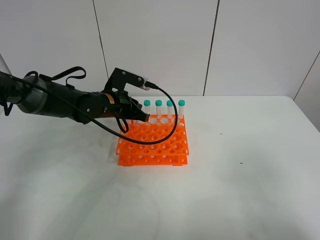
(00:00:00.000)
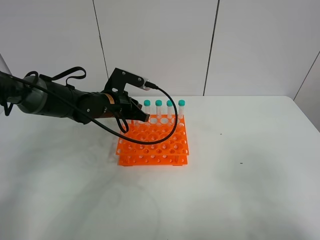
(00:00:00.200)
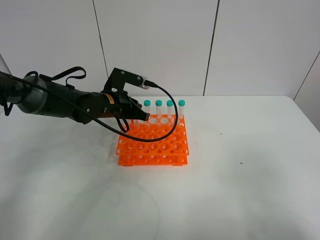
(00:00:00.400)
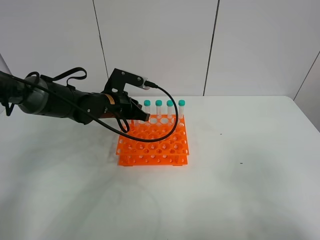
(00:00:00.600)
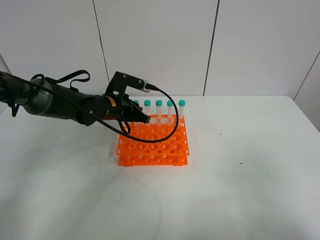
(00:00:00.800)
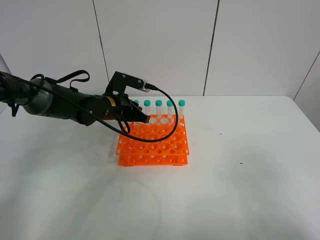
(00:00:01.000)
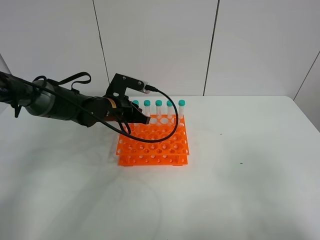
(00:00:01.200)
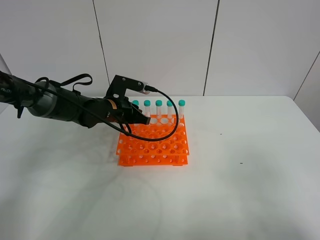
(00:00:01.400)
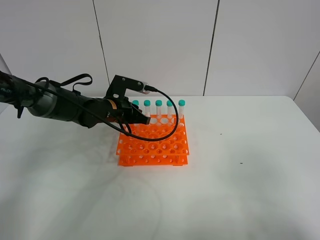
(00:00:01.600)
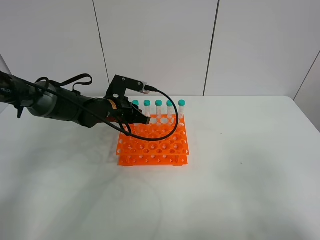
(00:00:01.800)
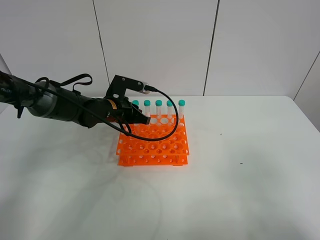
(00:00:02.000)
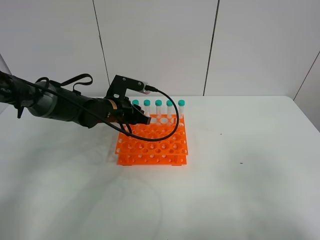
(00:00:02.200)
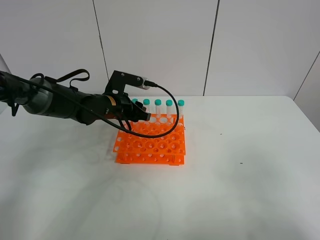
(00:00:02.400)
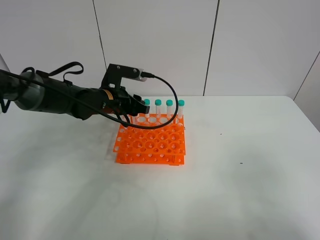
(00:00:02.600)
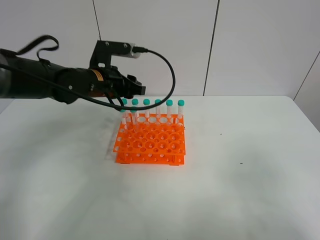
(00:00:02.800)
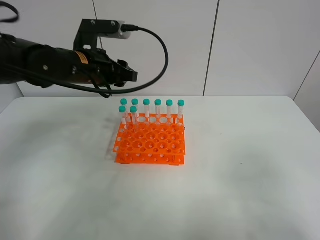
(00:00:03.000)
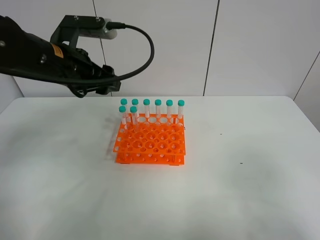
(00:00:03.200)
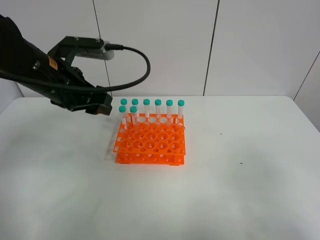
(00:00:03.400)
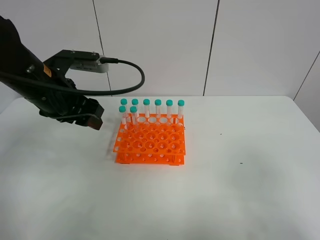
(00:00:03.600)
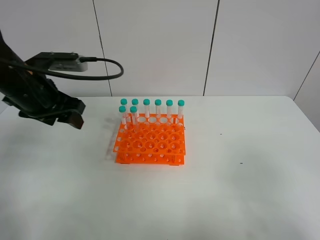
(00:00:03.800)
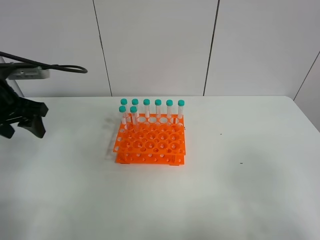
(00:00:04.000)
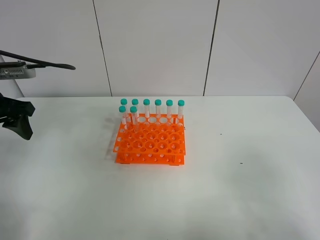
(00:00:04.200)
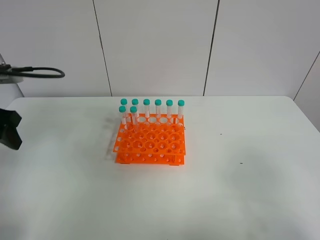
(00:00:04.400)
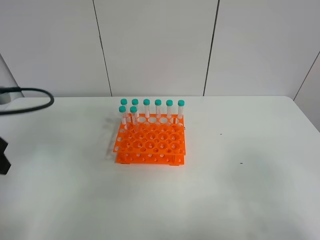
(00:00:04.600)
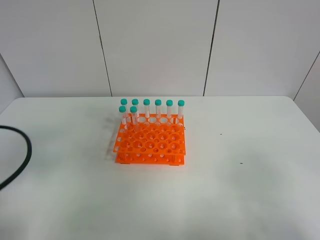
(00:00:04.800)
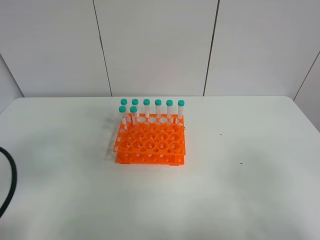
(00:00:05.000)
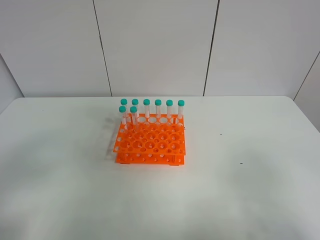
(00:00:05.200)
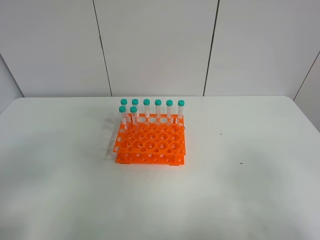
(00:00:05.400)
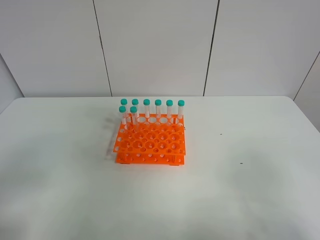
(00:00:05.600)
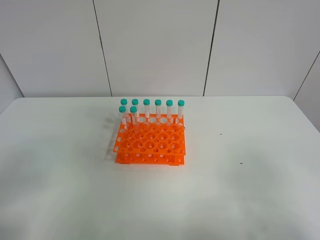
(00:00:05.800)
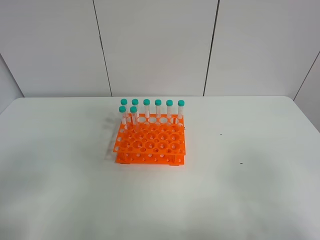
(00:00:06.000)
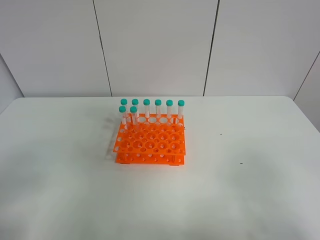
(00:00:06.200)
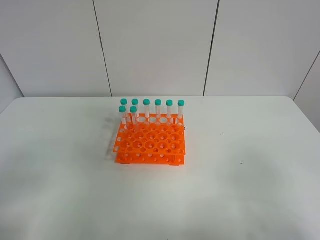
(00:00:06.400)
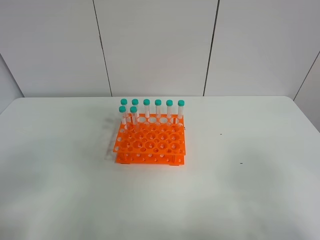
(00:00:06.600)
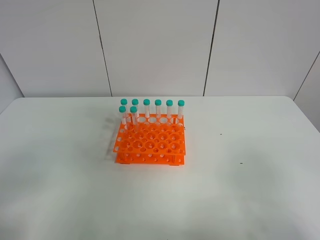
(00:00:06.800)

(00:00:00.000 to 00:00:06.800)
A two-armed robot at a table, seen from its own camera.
Task of the whole recording: Put the test tube on the table back onto the test tube rack.
Step, 00:00:00.000 - 00:00:02.400: Place the test tube on the test tube rack with the left gripper.
00:00:00.000 - 00:00:01.400: The grippers make only small movements.
00:00:01.400 - 00:00:02.800: The left gripper shifts roughly 10 cm upward, and opens.
00:00:02.800 - 00:00:04.000: The left gripper goes about 20 cm to the left and backward.
00:00:04.000 - 00:00:05.400: The left gripper moves backward, about 25 cm.
